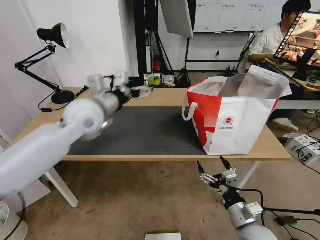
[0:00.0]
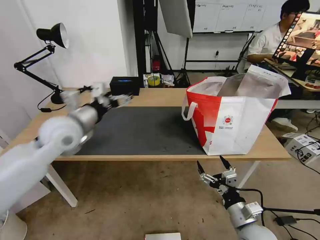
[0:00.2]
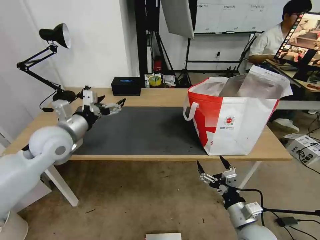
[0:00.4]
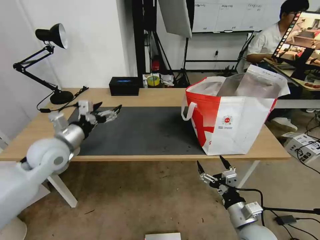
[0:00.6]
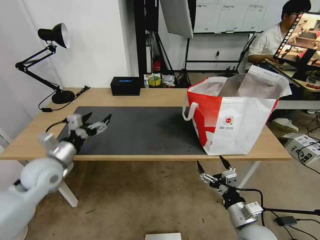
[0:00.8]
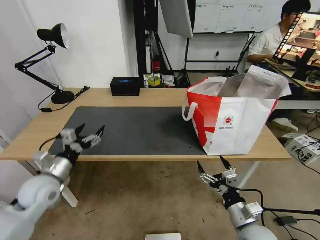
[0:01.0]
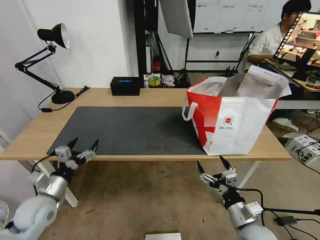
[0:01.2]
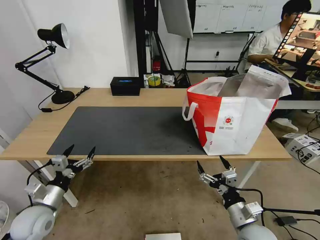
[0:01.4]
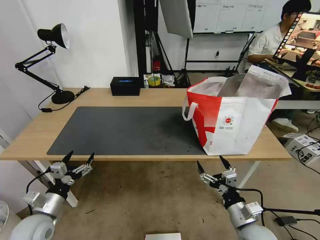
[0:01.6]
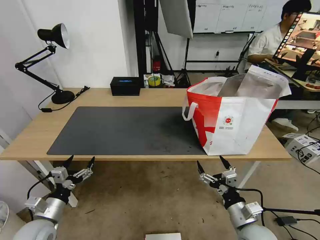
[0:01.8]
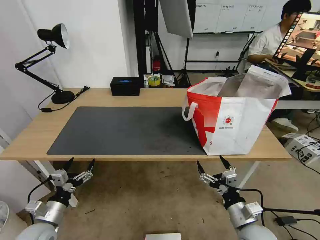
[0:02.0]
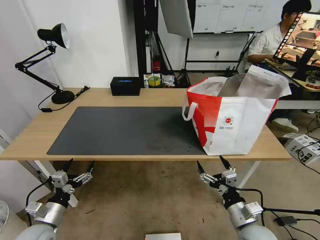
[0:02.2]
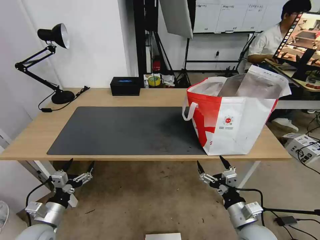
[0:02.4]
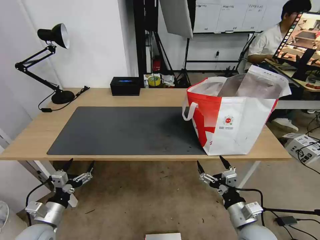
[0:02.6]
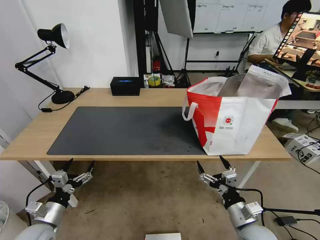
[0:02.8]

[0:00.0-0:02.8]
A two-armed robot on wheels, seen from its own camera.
Task of the whole recording: Pick up the trash from the table and place it into the takeout bag.
0:00.0 to 0:01.4: The left gripper goes some 35 cm downward, backward and to the left.
0:01.4 to 0:02.8: The left gripper ends up roughly 5 cm from where it was.

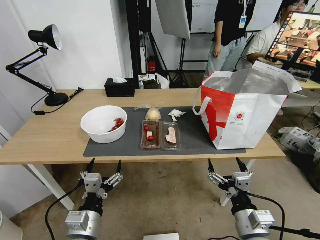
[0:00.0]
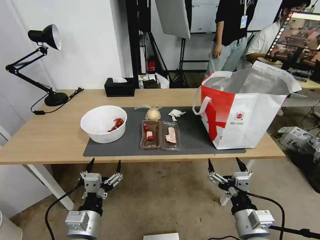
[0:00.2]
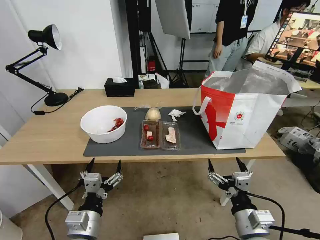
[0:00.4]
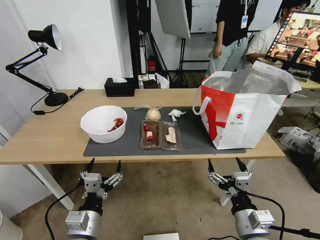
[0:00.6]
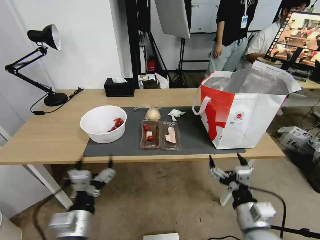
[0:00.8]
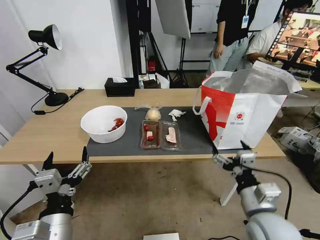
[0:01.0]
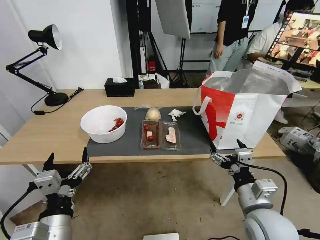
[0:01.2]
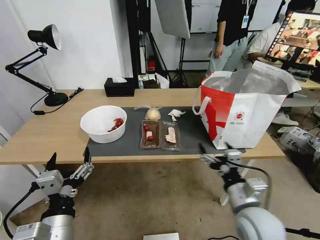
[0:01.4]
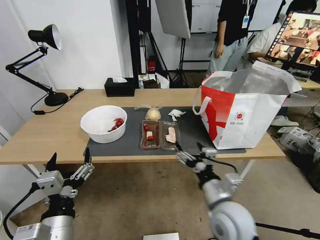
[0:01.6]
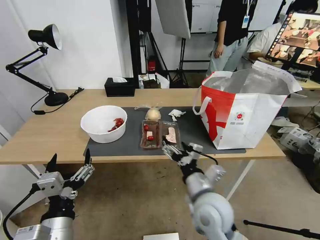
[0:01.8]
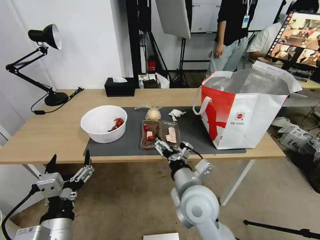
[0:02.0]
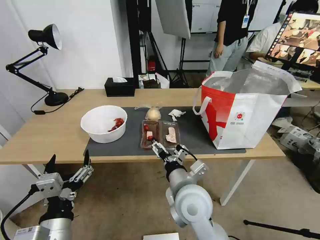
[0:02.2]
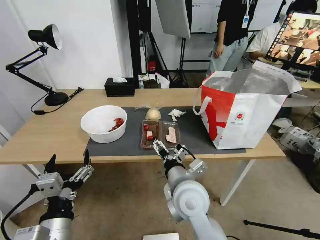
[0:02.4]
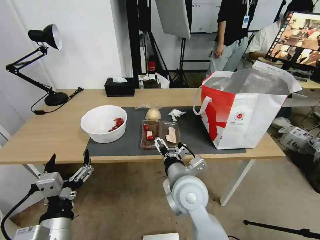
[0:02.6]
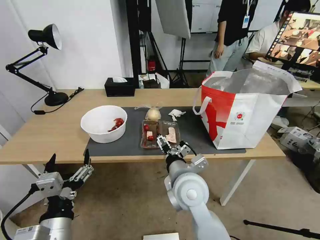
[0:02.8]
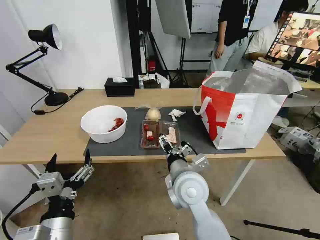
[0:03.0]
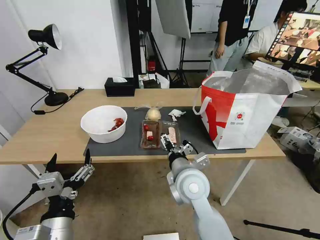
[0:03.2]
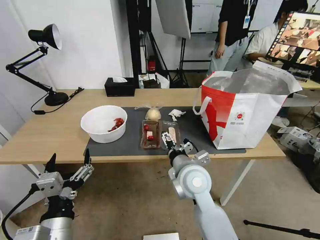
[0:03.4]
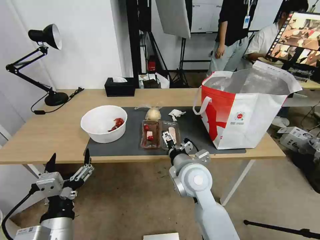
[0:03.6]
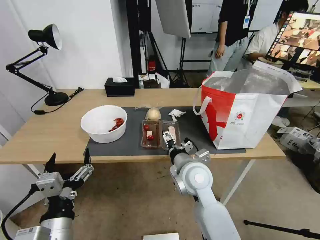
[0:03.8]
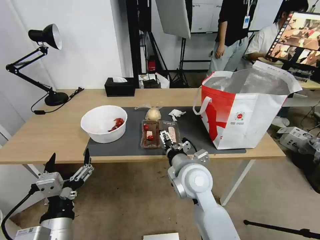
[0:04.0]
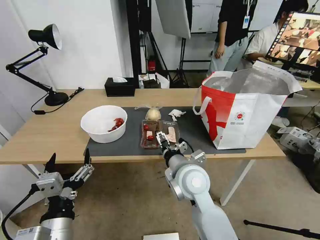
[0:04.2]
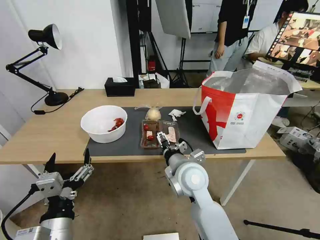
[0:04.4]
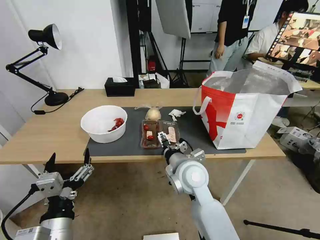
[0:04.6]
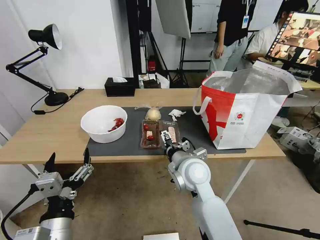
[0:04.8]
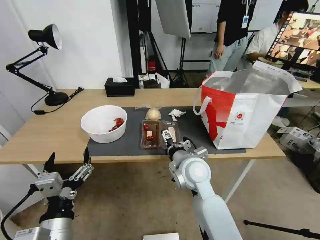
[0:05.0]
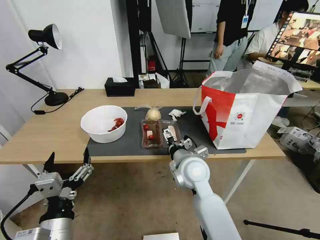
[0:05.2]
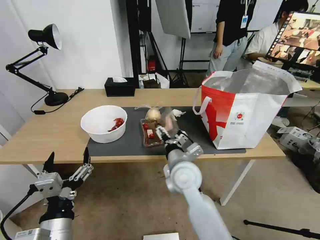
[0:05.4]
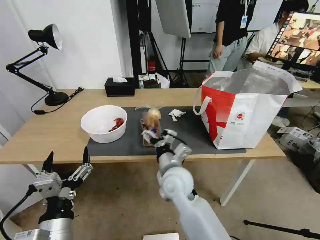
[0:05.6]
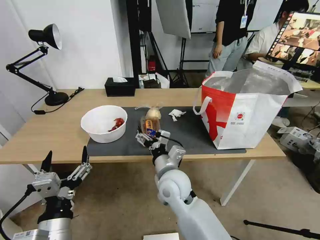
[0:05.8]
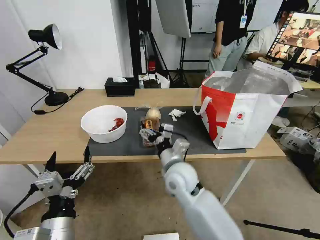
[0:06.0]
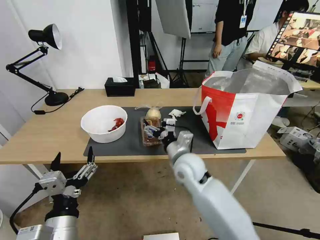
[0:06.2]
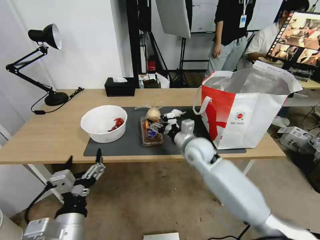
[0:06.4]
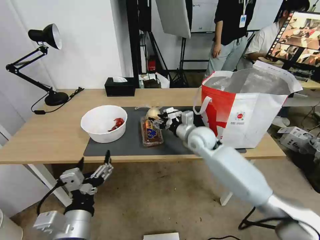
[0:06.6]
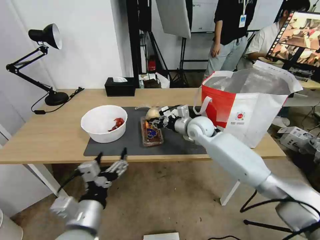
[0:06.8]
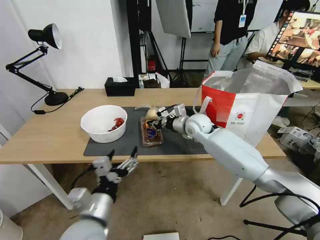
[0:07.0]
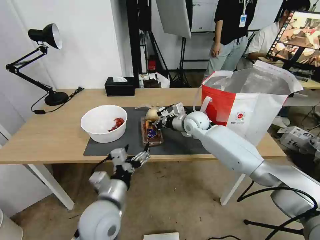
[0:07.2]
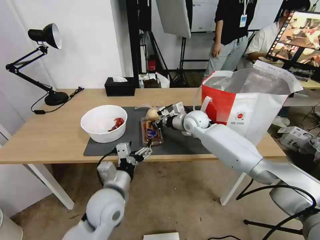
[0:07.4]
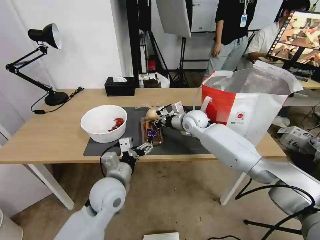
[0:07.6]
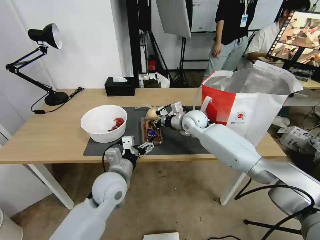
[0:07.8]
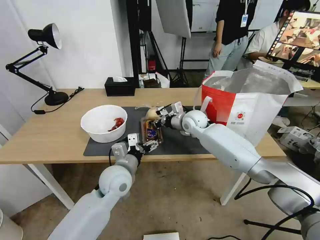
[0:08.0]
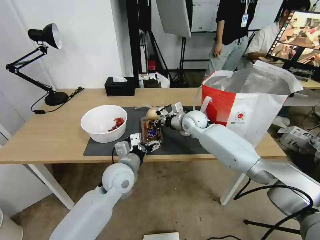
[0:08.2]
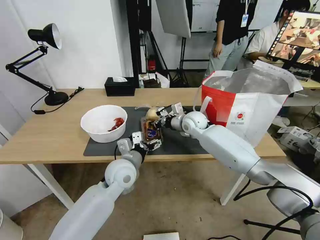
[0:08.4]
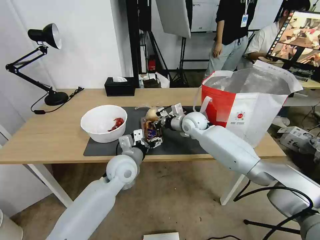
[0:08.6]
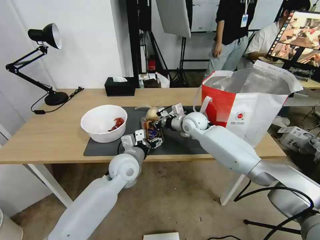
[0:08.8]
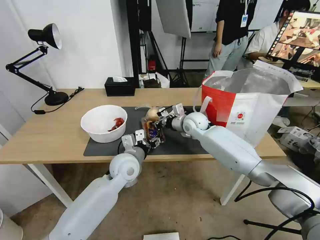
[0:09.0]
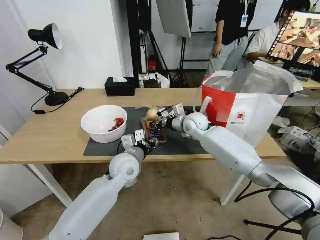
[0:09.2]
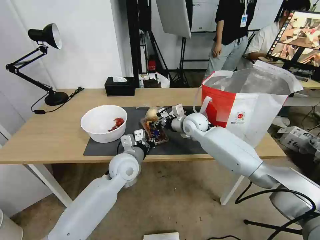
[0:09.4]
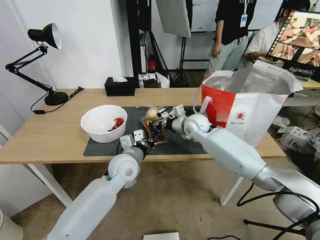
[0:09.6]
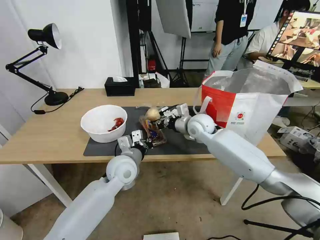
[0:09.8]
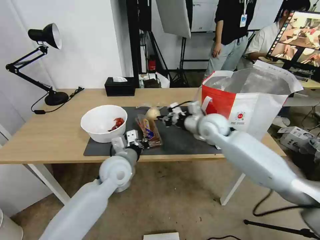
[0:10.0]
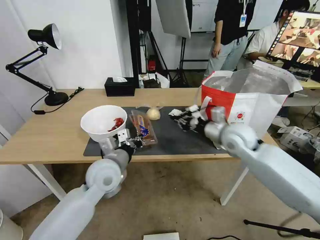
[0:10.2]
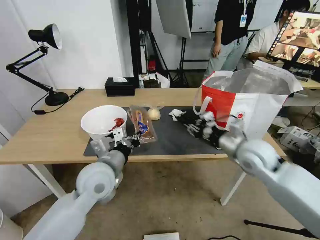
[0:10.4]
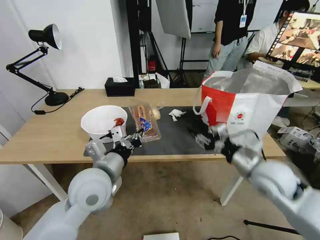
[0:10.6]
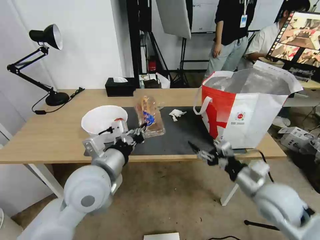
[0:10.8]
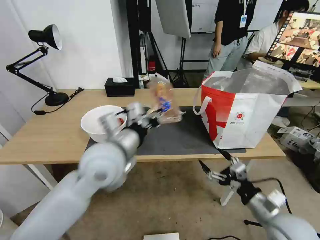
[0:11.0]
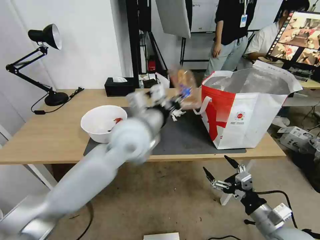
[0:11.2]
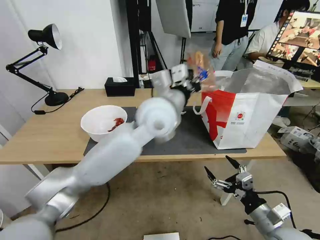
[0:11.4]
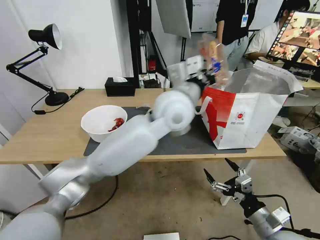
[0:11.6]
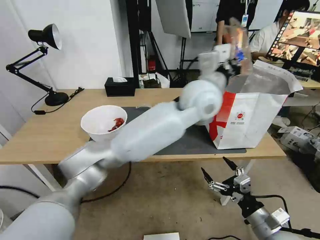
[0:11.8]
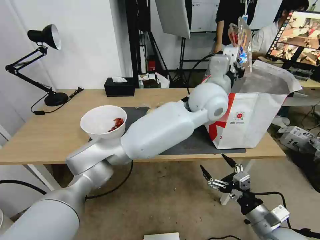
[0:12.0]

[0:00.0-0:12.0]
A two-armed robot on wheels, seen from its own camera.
Task of the whole recording: Pick up the trash from the table and place it into the takeout bag.
0:01.6 to 0:03.0: The right gripper goes some 10 cm to the left and forward.
0:03.0 to 0:04.4: The grippers make only small movements.
0:06.0 to 0:07.6: The right gripper is displaced forward by about 25 cm, and closes. Meanwhile the left gripper moves forward and to the right, approximately 20 cm.
0:07.6 to 0:09.0: The left gripper goes roughly 10 cm forward, and closes up.
0:09.0 to 0:10.4: The right gripper goes roughly 20 cm backward and to the right; the left gripper travels backward, upward and to the left by approximately 10 cm, and closes its fingers.
0:10.4 to 0:12.0: The left gripper travels to the right, upward and forward by approximately 35 cm, while the right gripper moves backward and downward, roughly 25 cm, and opens its fingers.

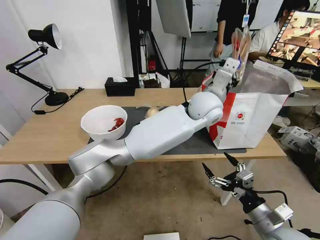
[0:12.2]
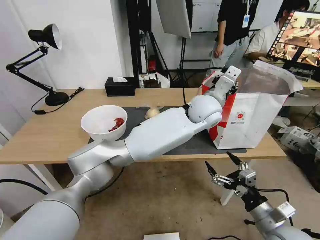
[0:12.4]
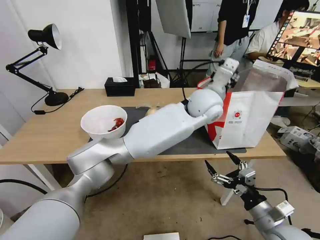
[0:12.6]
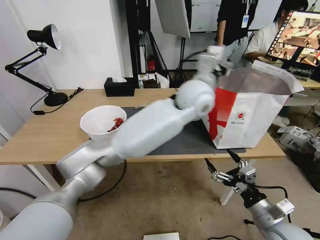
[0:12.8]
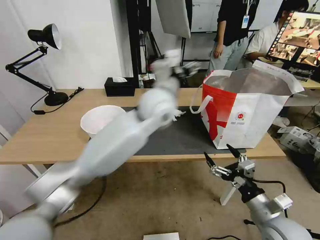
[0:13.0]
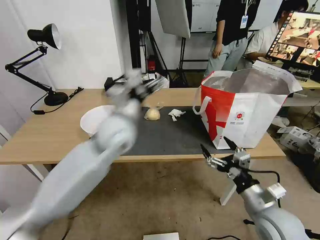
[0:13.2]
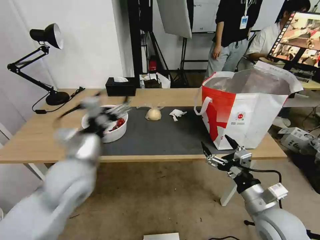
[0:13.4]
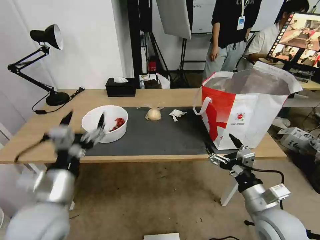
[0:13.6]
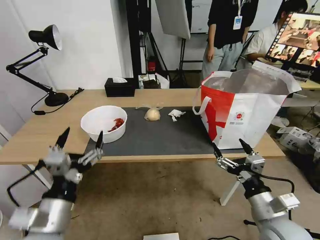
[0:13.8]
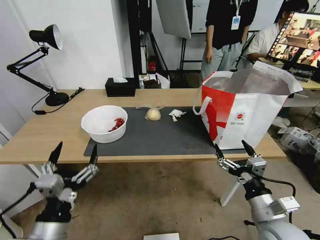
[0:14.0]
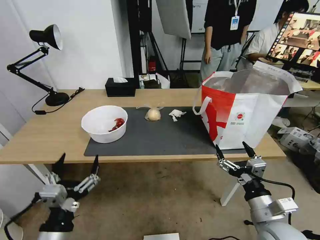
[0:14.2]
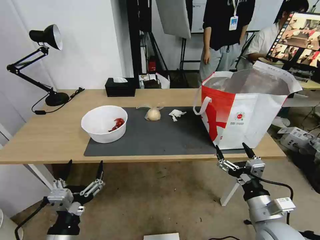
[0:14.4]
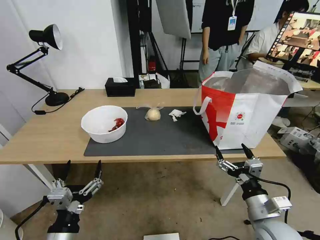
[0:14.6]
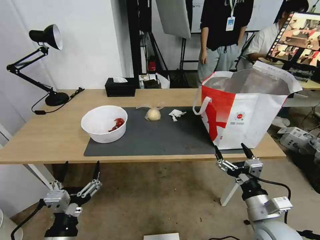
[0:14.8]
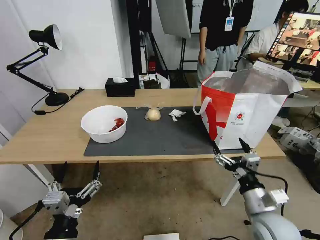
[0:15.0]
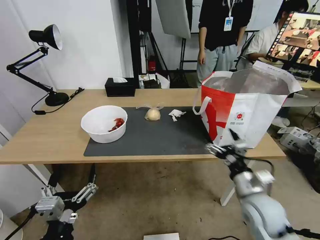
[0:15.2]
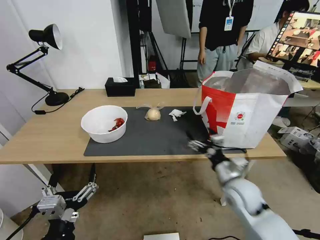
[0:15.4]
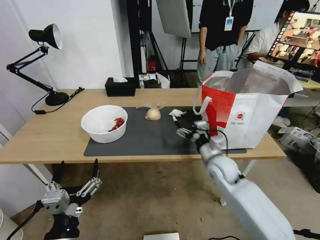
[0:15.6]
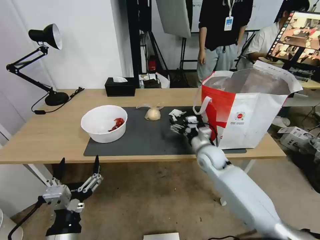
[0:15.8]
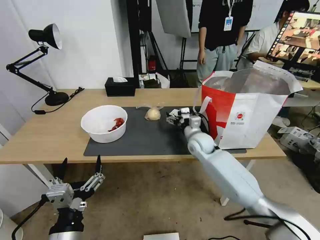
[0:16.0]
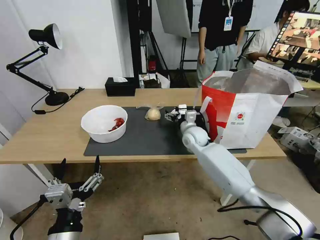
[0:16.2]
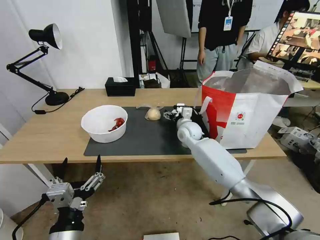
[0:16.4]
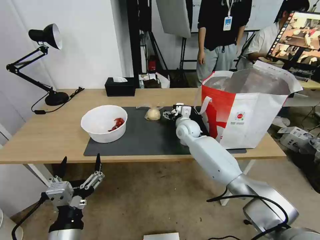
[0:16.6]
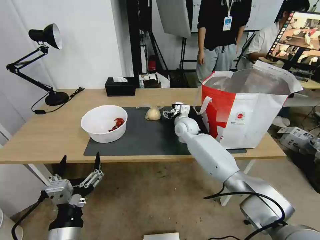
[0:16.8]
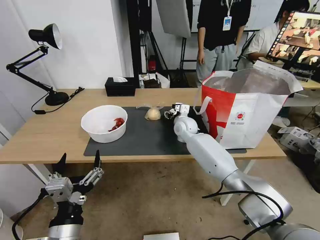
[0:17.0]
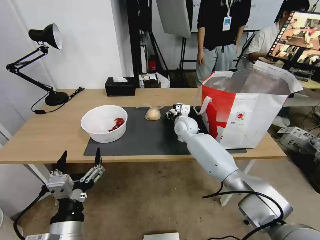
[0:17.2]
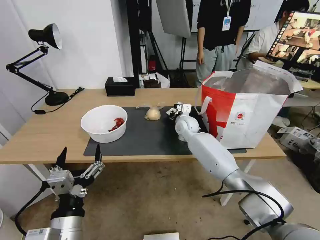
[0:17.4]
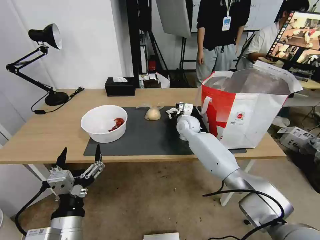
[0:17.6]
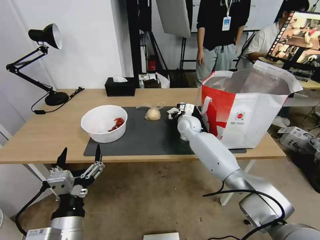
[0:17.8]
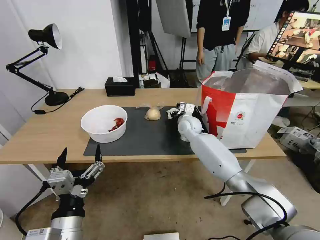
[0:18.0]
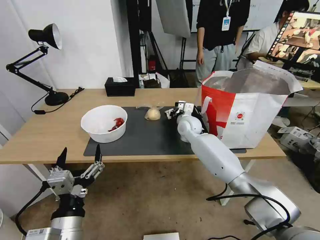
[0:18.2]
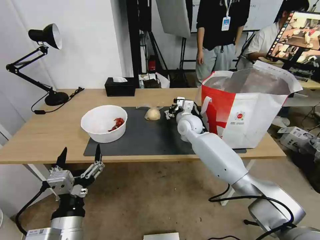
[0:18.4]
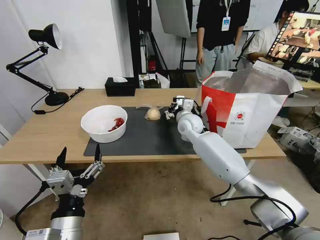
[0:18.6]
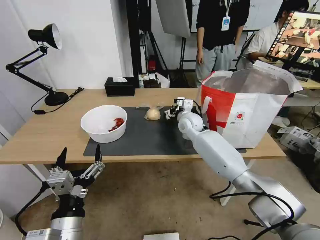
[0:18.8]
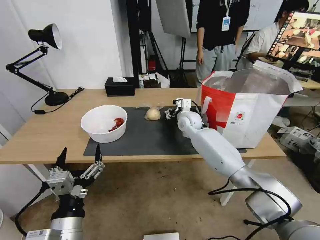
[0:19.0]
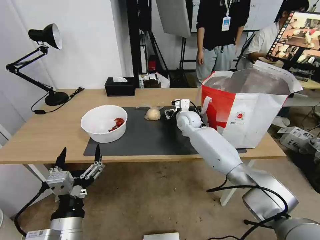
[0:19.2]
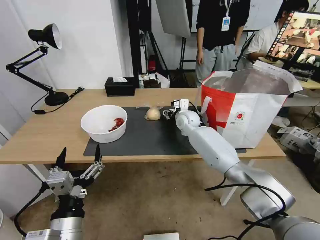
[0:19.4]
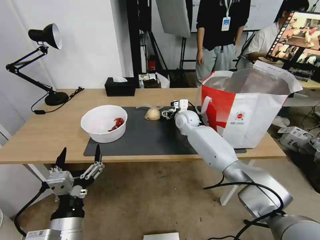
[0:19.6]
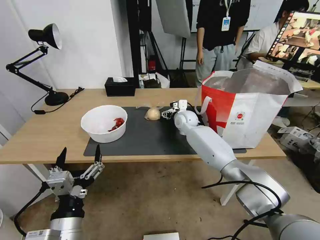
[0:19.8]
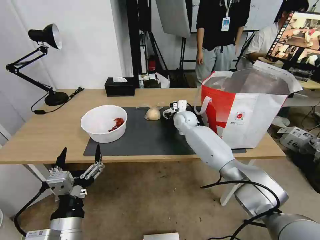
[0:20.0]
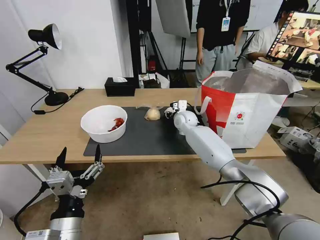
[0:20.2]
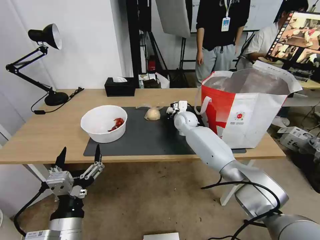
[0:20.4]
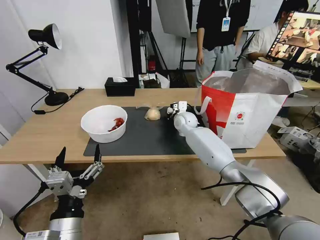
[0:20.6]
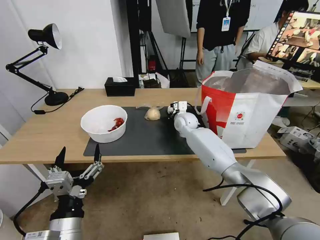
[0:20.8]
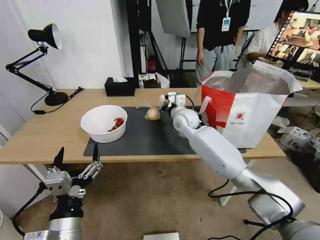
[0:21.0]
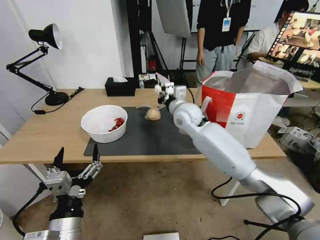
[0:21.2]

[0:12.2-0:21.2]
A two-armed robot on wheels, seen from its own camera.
Task of the whole recording: Pick up the trash from the table and place it into the takeout bag.
0:12.2 to 0:13.8: The left gripper travels to the left and backward by about 50 cm, and opens up.
0:13.8 to 0:15.2: The right gripper moves approximately 5 cm; the left gripper goes about 10 cm backward and downward.
0:15.2 to 0:16.6: The right gripper travels forward and to the left by some 35 cm.
0:16.6 to 0:18.2: The right gripper closes up.
0:18.2 to 0:19.8: The right gripper opens up.
0:19.8 to 0:21.2: The right gripper moves upward and backward, about 10 cm, and closes its fingers.
